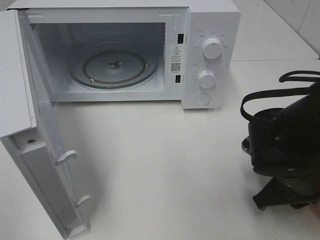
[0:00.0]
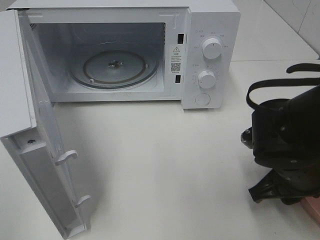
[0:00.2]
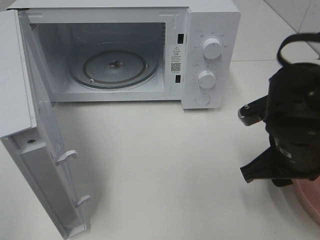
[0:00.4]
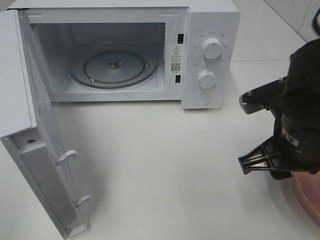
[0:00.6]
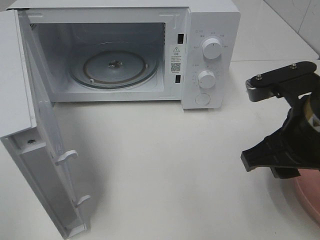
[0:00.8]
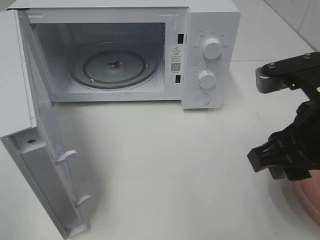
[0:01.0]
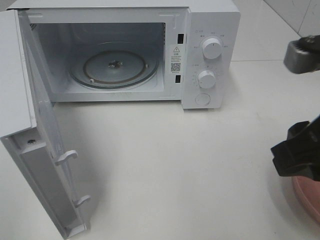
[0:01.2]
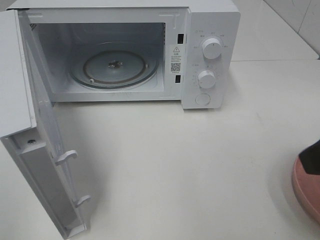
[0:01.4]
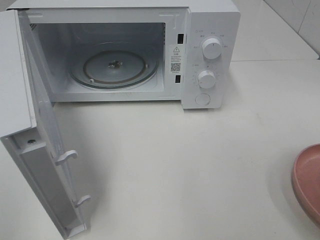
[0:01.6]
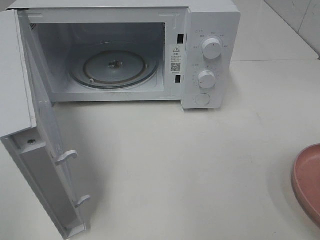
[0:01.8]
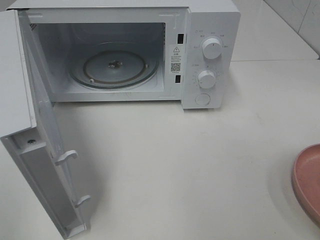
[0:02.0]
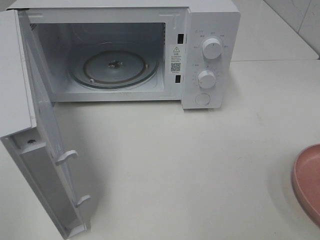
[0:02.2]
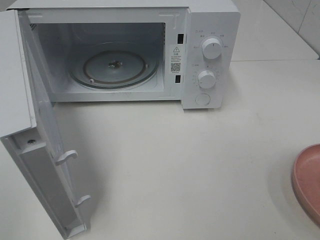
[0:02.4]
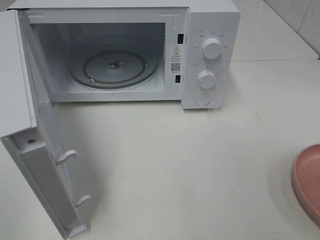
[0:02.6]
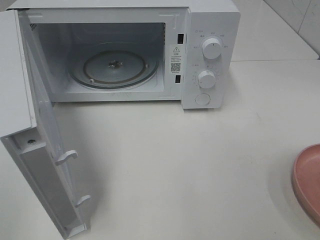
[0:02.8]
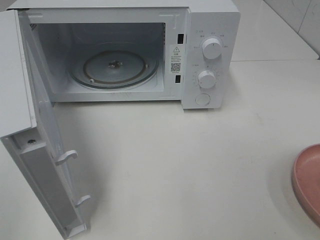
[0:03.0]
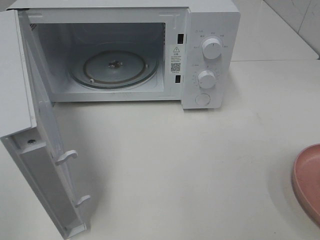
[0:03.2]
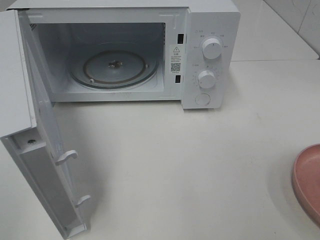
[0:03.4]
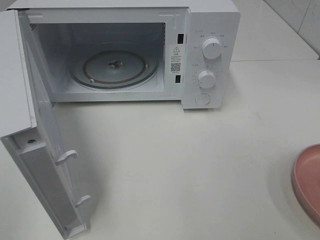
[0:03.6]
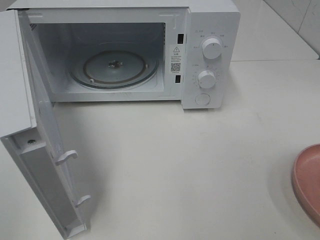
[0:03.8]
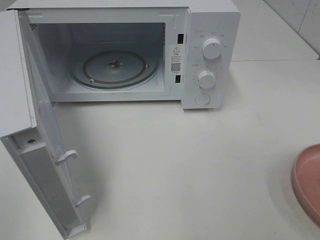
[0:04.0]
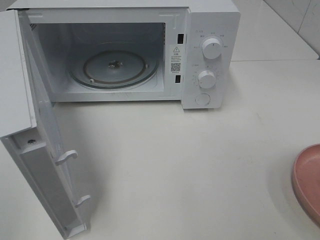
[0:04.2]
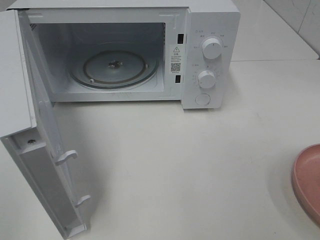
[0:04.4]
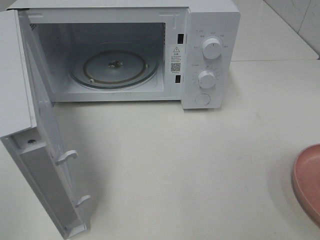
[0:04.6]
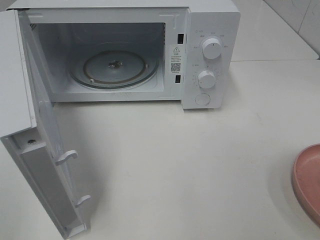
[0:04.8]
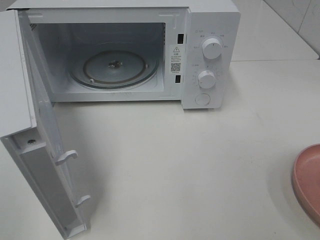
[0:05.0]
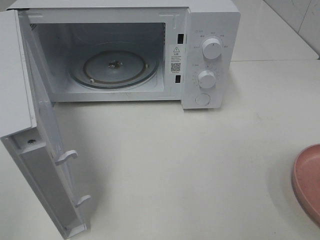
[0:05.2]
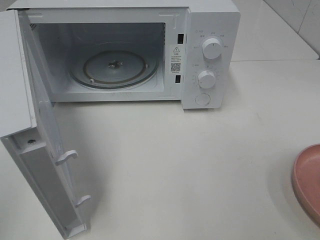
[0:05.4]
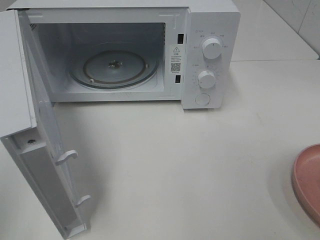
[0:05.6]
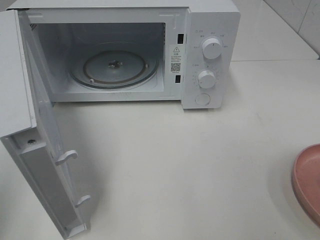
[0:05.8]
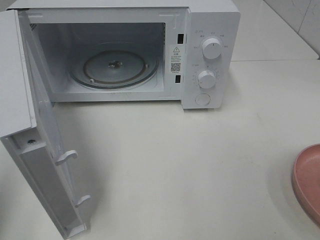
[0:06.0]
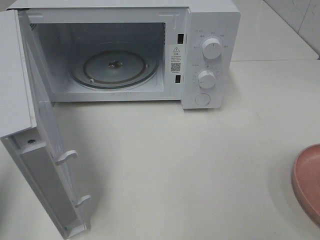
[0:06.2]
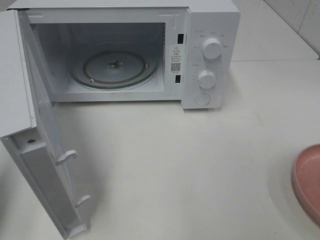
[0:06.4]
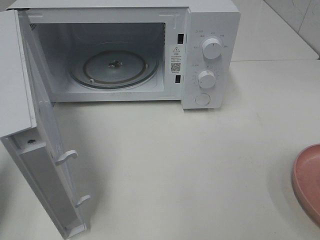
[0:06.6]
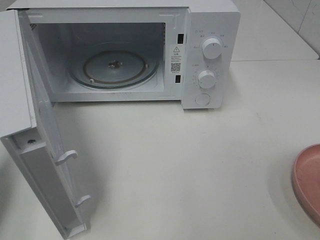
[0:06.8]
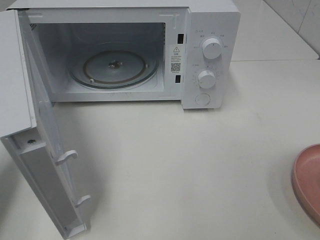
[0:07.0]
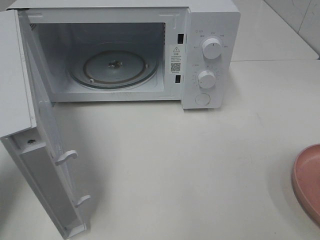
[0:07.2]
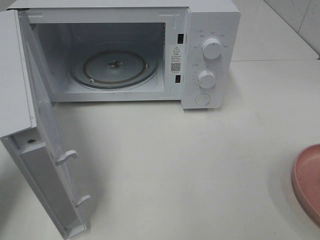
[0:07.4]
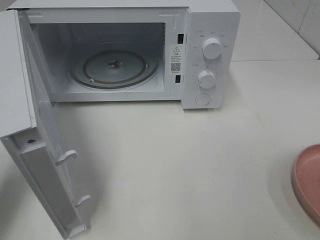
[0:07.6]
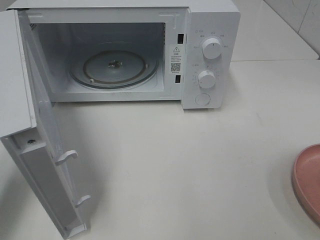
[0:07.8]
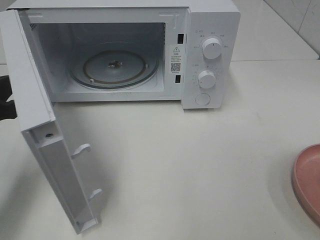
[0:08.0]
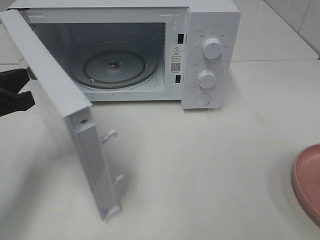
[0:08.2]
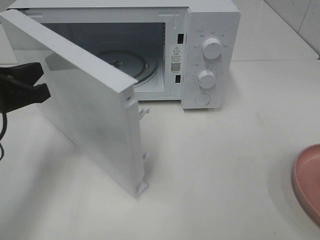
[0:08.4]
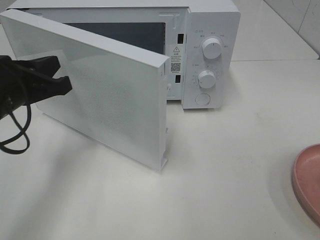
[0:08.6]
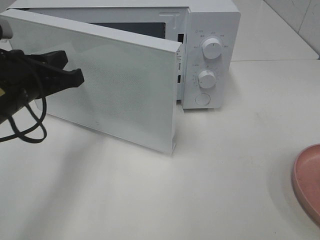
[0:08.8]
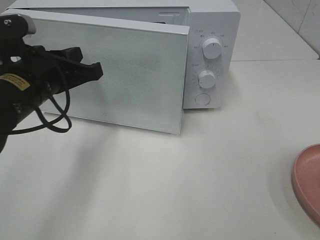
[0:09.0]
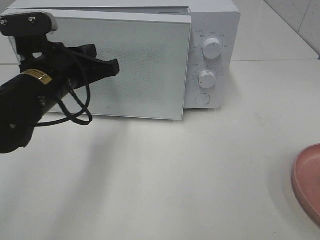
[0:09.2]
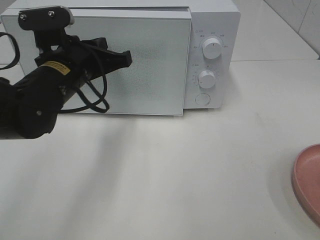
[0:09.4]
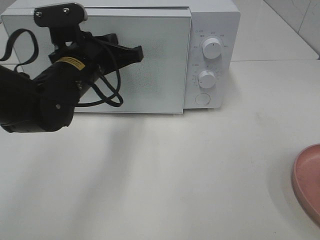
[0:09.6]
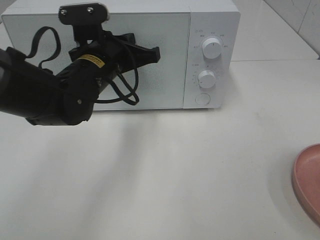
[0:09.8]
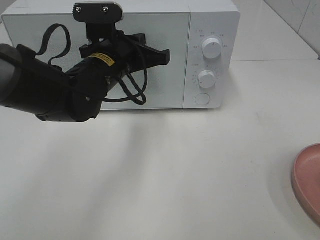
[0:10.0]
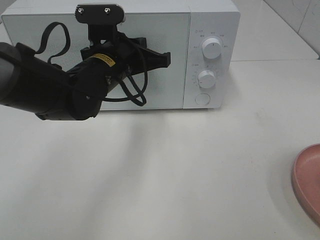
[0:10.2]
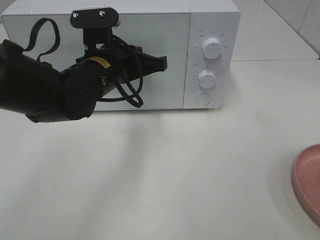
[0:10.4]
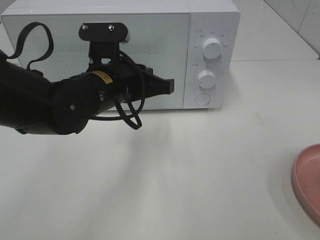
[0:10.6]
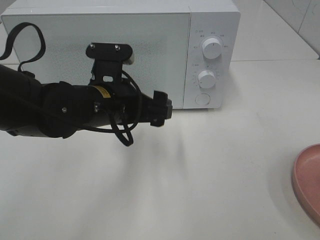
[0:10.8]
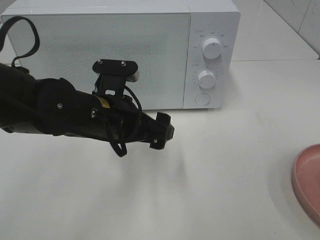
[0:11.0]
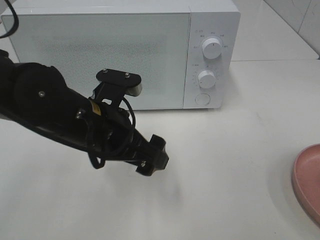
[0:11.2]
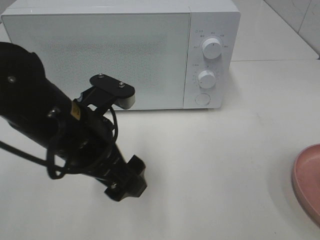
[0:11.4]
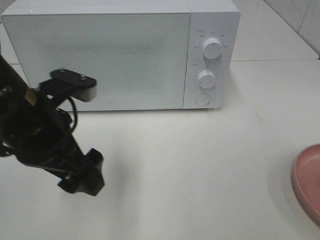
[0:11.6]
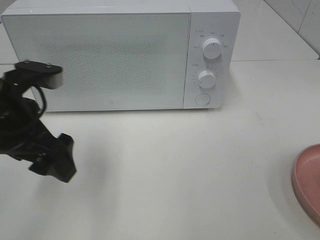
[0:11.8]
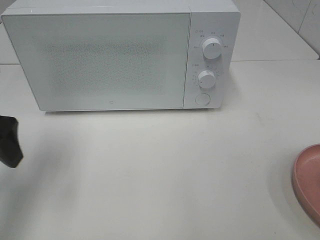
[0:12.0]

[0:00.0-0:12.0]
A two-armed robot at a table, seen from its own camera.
Task of the whole recording: Heat the burger.
Step, 0:00.4 to 0:10.2: Left hand: close the microwave door.
0:00.0 to 0:01.6: The right gripper shifts roughly 25 cm upward and backward.
0:03.0 to 0:04.4: Neither gripper changes place.
0:06.0 to 0:07.6: The left gripper heads forward and downward, covering about 15 cm.
0:07.6 to 0:09.0: The left gripper heads to the right and forward, covering roughly 15 cm.
0:09.0 to 0:10.4: The left gripper travels to the right by roughly 10 cm.
0:10.4 to 0:12.0: The left gripper shifts roughly 20 cm to the left and backward, and opens up.

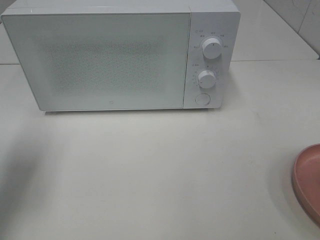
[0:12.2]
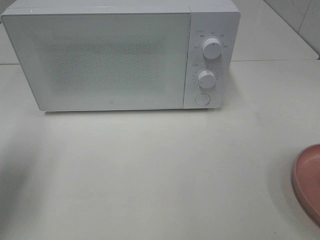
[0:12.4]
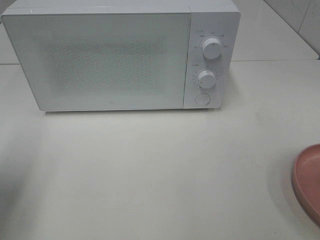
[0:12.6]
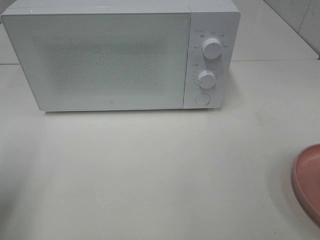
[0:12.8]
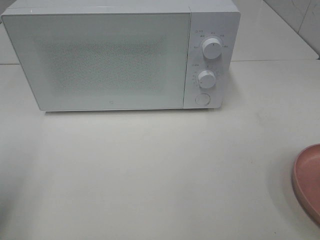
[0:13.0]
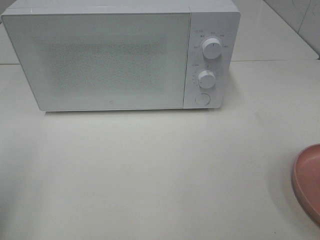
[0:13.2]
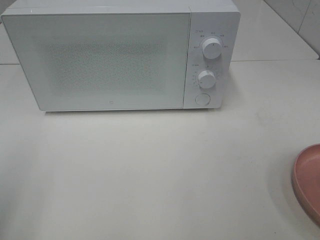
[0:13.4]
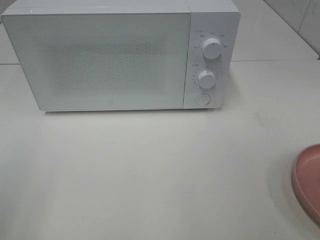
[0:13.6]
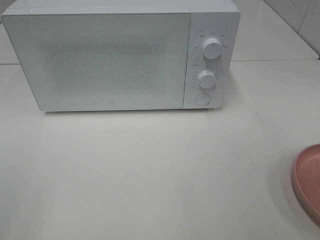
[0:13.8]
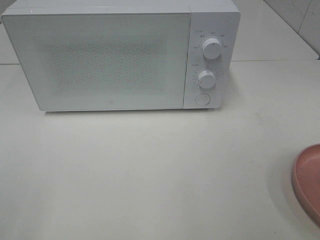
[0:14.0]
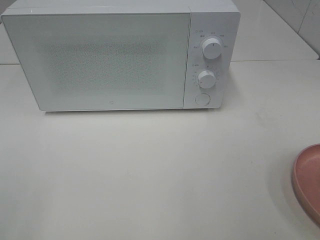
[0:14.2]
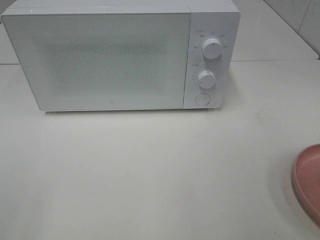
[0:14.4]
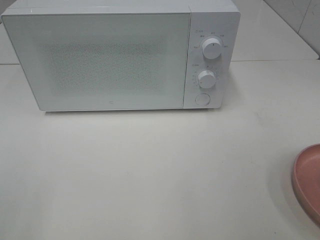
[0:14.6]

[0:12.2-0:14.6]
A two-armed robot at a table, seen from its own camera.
Task of the whole recording: Heat the burger.
0:12.2 to 0:13.4: The left gripper shifts some 15 cm backward.

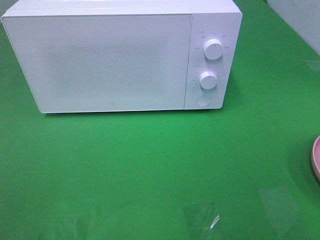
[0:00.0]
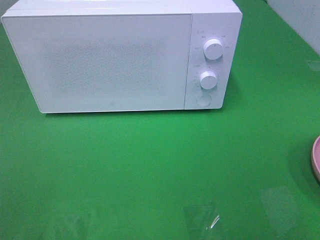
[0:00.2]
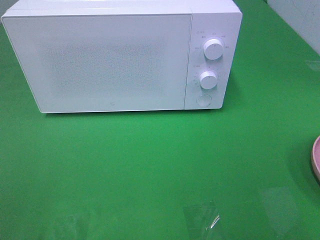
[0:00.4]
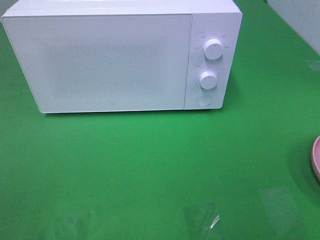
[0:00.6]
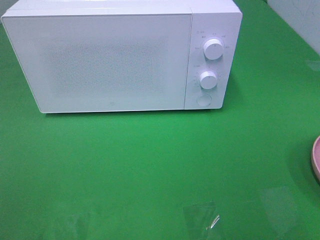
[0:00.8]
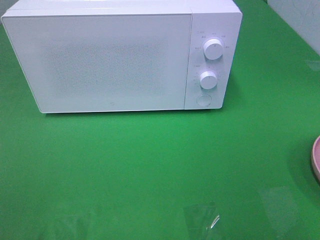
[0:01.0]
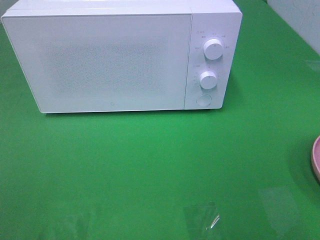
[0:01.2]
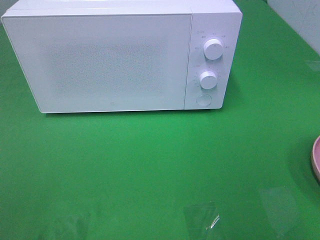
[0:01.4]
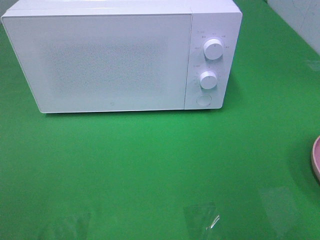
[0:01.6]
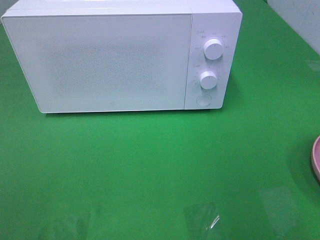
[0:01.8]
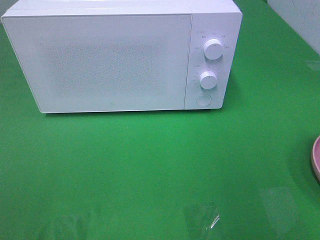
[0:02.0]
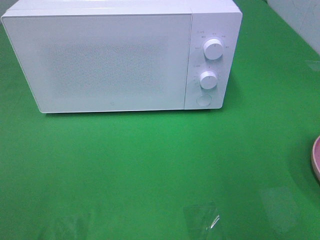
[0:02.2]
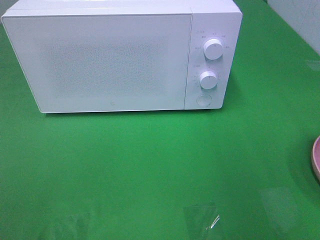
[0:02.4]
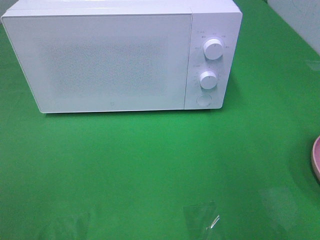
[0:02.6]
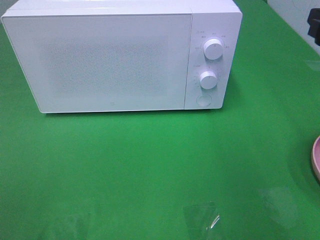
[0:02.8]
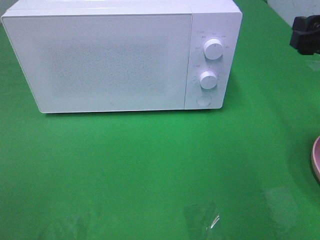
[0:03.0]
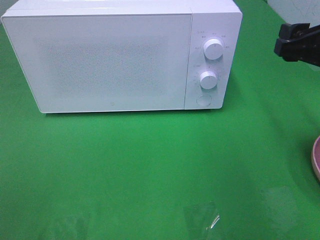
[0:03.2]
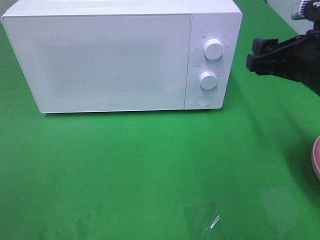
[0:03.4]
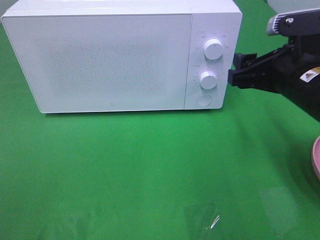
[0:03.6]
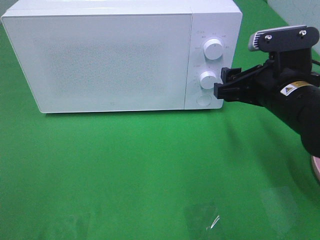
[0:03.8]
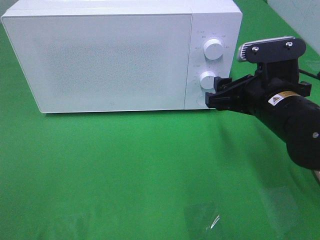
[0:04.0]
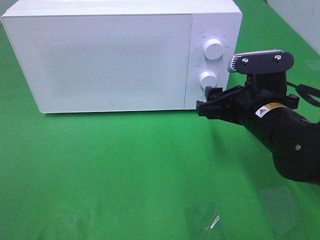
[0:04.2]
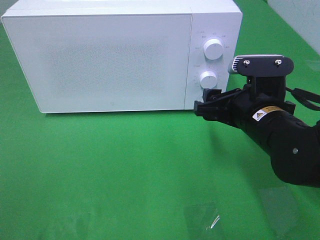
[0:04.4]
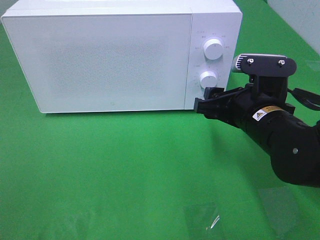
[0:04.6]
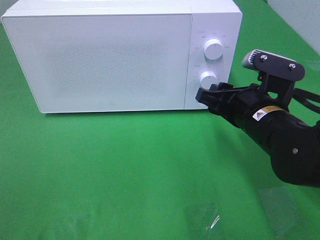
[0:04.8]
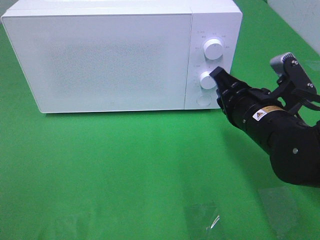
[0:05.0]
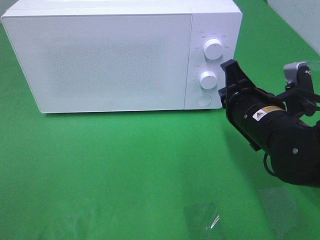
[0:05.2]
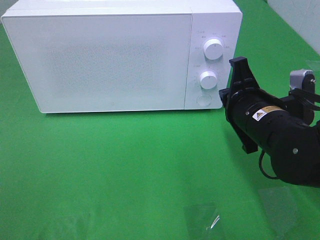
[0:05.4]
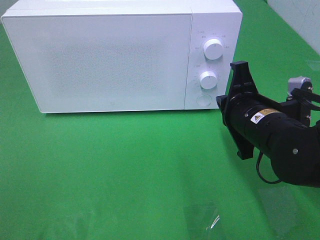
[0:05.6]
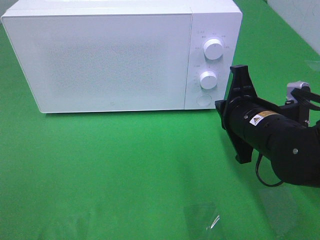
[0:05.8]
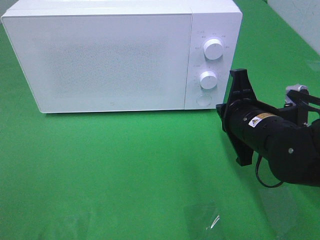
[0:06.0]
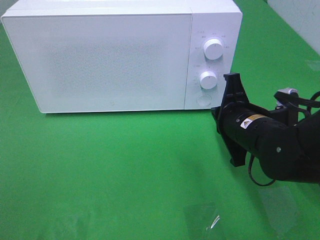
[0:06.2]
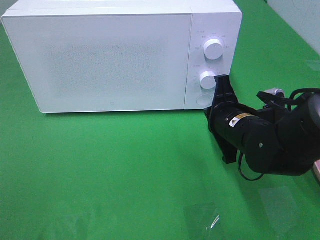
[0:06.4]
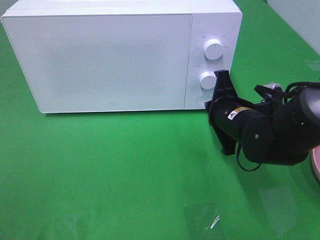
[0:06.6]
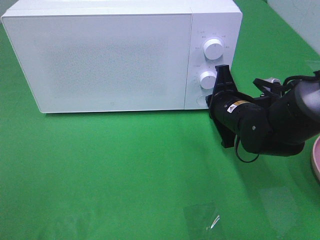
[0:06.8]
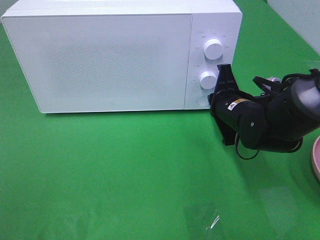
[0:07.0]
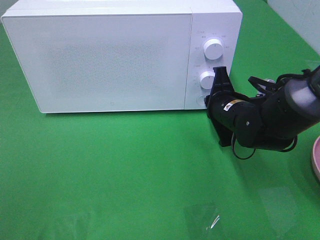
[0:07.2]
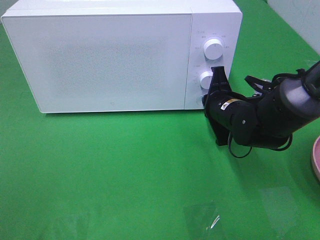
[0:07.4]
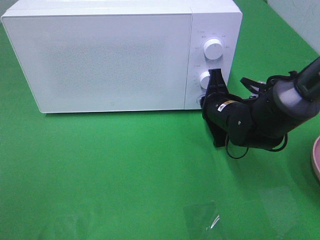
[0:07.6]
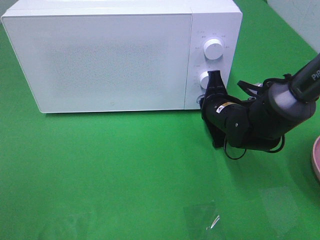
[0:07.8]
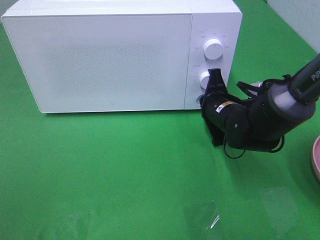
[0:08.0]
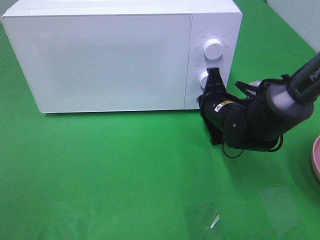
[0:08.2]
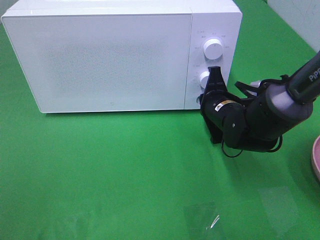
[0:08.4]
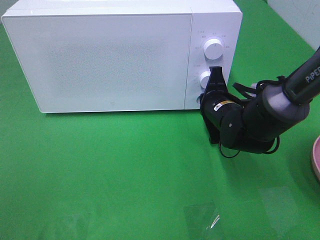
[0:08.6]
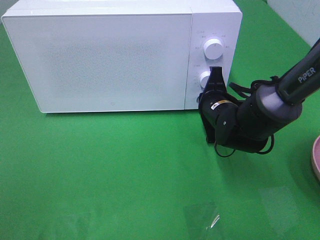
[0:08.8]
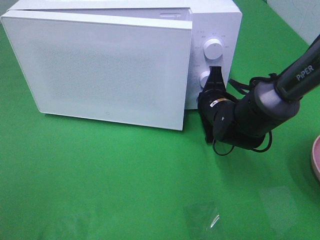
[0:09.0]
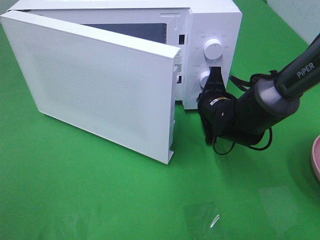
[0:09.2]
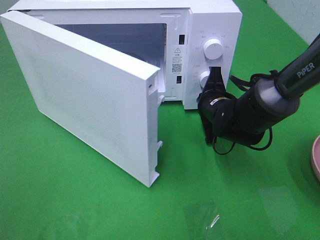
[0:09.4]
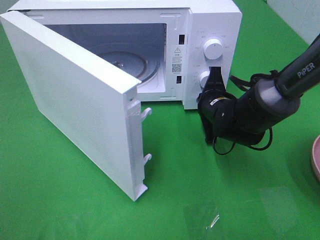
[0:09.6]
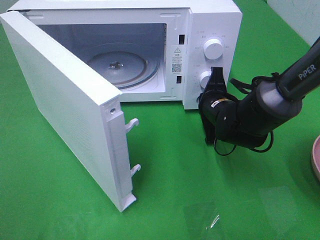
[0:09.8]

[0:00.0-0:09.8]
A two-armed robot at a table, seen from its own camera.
Task of the whole recording: Heat the burger.
0:02.8 to 0:04.2: The right gripper moves to the left and downward, some 15 cm.
0:04.2 to 0:05.6: The right gripper closes.
0:05.6 to 0:07.0: The right gripper is displaced forward by about 10 cm.
0:07.0 to 0:08.4: The grippers make only small movements.
